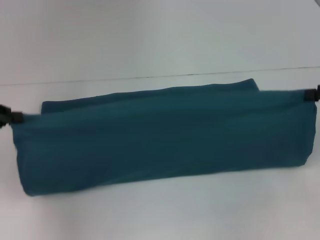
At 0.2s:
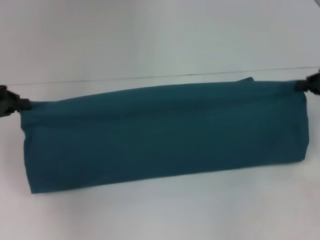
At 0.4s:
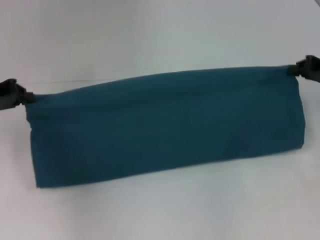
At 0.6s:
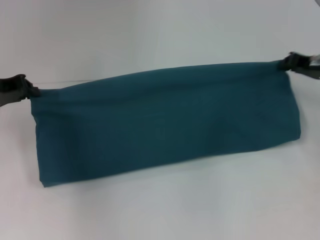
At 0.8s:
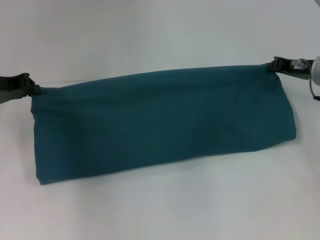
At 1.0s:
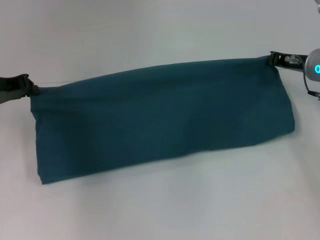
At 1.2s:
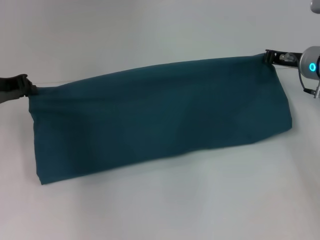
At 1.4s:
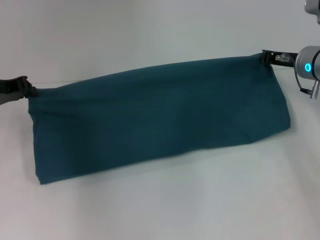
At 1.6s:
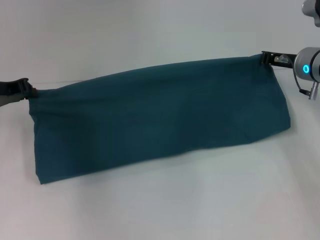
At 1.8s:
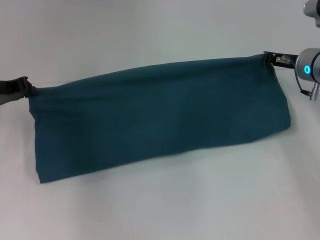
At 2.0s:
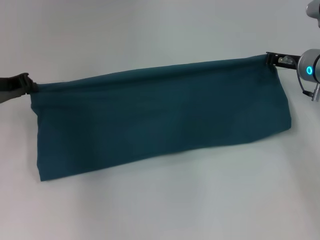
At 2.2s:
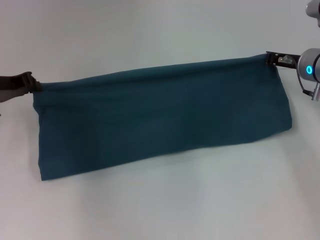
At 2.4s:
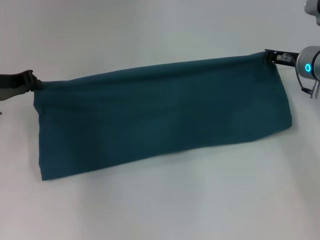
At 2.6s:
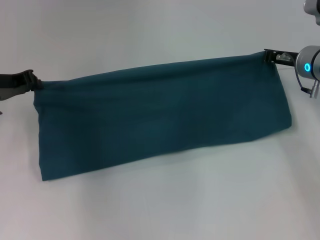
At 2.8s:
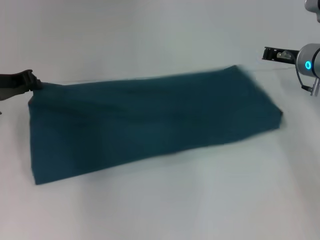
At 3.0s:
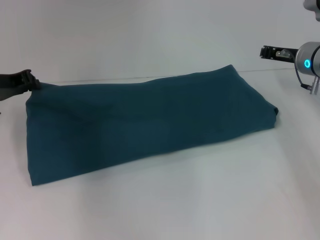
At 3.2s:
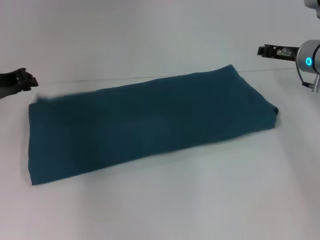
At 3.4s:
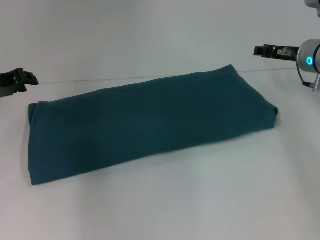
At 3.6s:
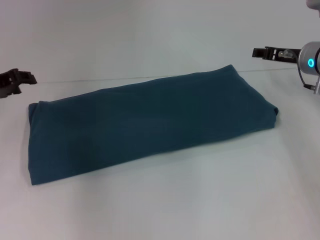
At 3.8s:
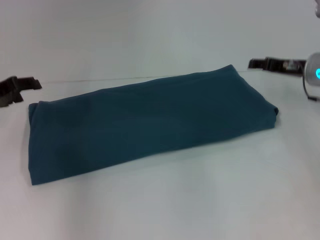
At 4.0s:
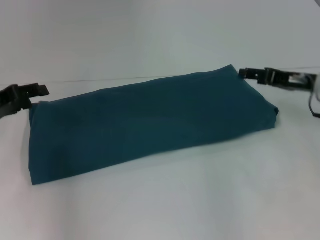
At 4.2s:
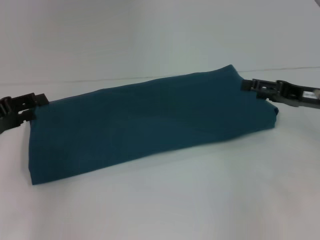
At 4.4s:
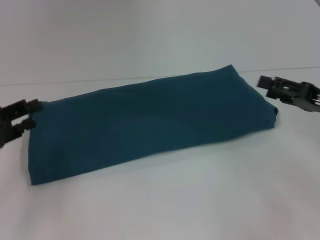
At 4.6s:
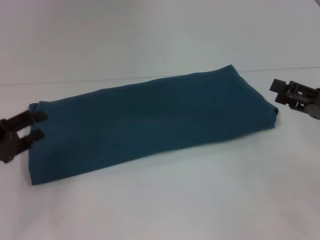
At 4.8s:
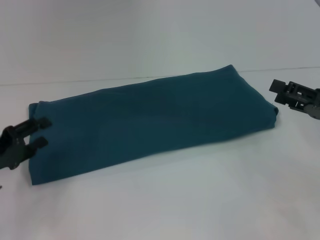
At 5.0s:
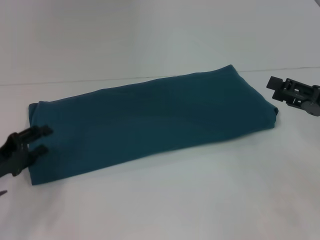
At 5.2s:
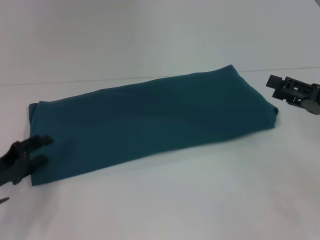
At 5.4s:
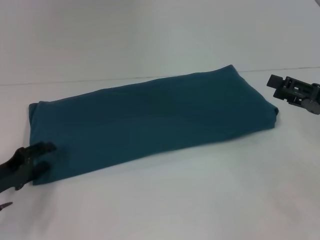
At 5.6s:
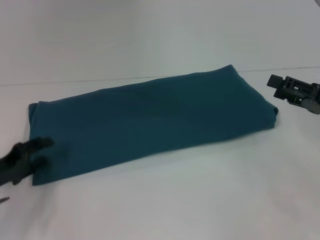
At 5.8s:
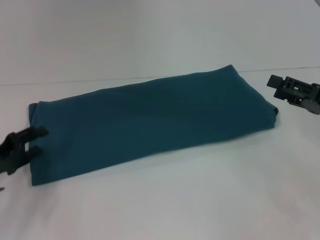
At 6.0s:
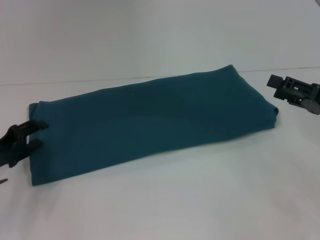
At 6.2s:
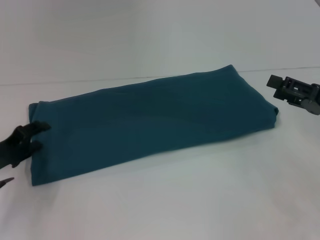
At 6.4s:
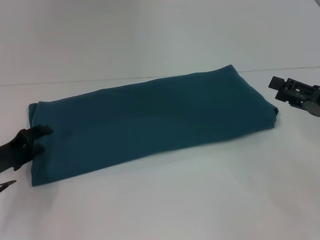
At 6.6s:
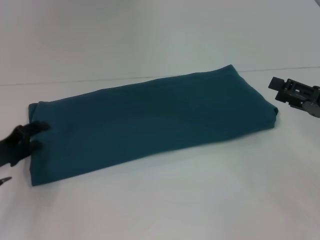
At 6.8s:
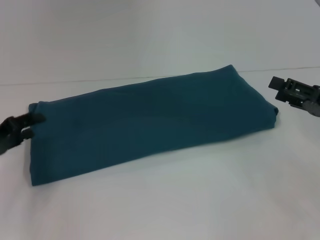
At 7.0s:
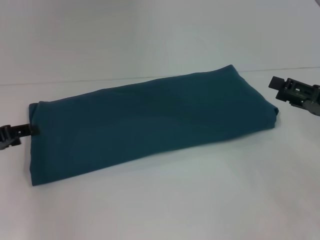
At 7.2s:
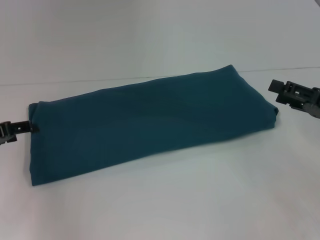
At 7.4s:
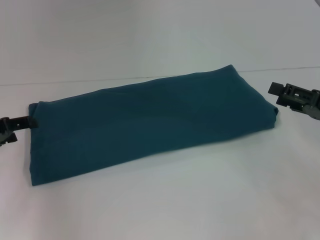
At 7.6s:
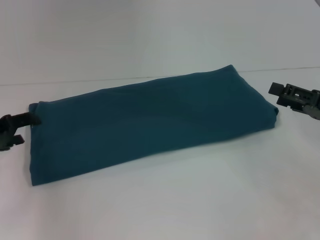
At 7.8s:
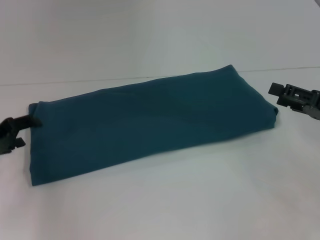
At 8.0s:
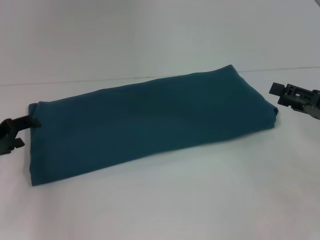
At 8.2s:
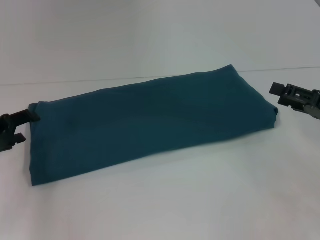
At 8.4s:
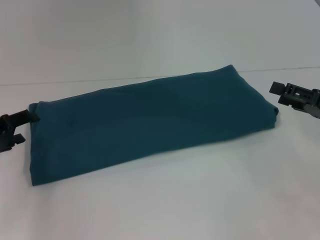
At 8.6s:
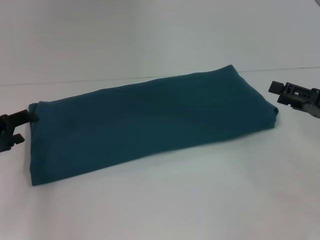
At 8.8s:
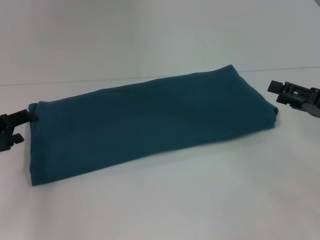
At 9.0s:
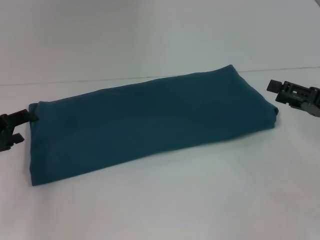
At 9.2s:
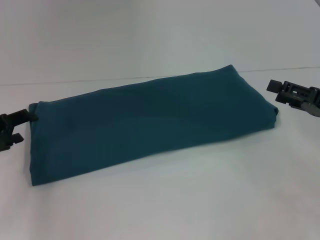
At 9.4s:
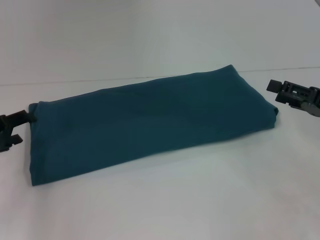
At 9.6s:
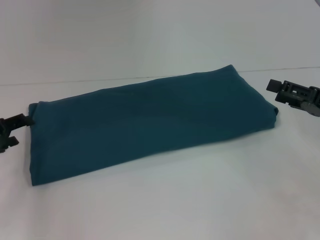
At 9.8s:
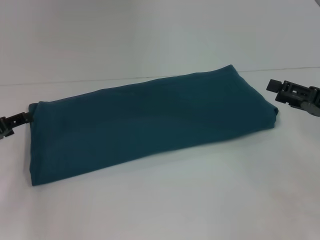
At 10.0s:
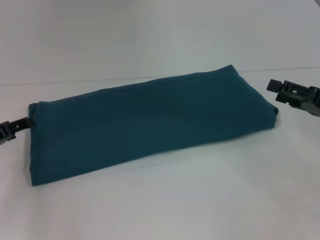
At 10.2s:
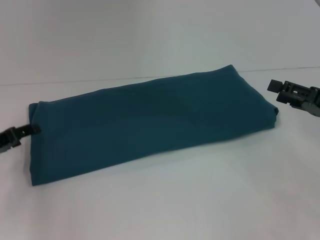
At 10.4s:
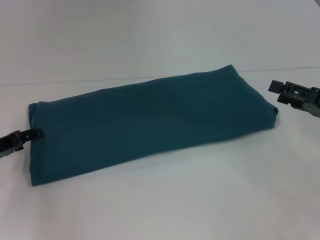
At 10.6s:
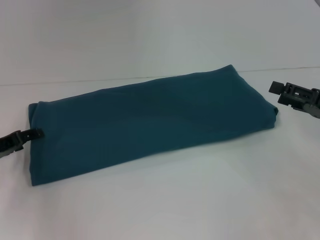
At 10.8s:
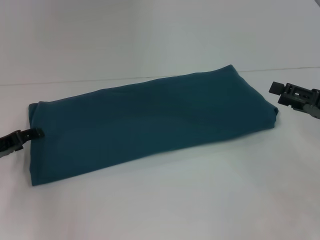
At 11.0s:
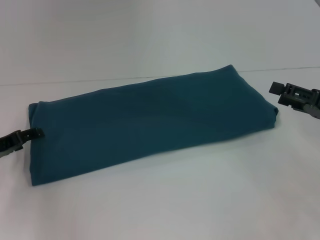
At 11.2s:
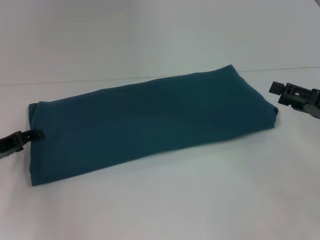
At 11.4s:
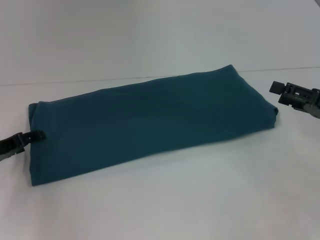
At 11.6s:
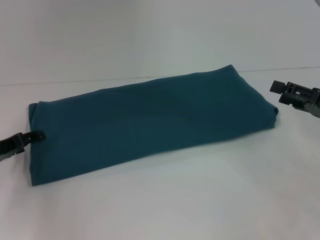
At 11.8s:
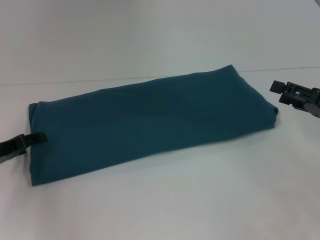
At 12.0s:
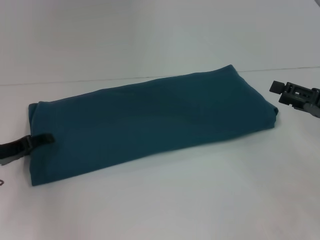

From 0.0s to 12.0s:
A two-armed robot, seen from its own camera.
Step, from 0.0s to 3.6s: Fold the clothes to the right.
From 0.0s to 1.6s: The left gripper is displaced forward and to the right by roughly 10 cm, while the right gripper is displaced to the left and forward by about 15 cm.
From 1.6s to 3.0s: Both grippers stay put.
From 3.0s to 4.4s: The right gripper is displaced backward and to the right by about 15 cm, and opens. Meanwhile the left gripper goes some 10 cm backward, and opens.
From 4.4s to 6.0s: The left gripper travels downward by about 5 cm.
From 6.0s to 7.6s: The left gripper is displaced upward by some 5 cm.
From 7.6s to 12.0s: The grippers stay close to where they were, moving slightly.

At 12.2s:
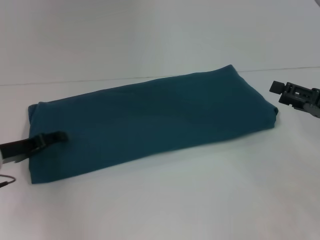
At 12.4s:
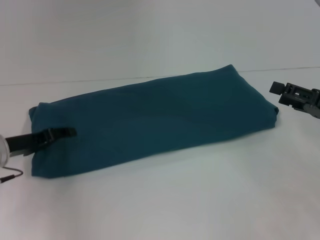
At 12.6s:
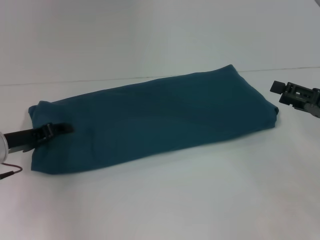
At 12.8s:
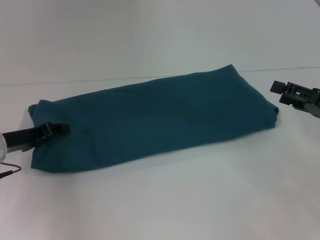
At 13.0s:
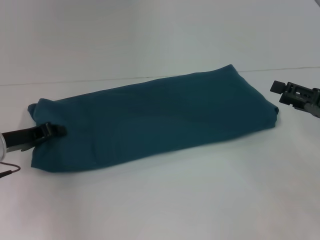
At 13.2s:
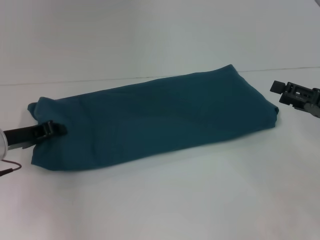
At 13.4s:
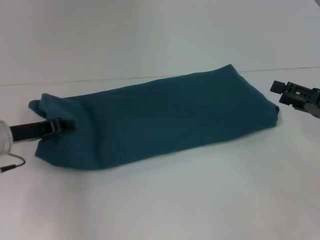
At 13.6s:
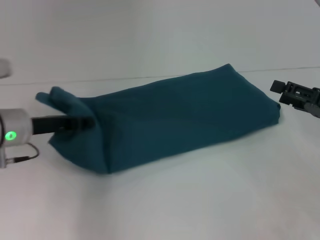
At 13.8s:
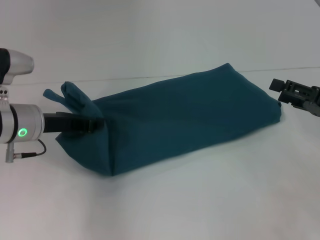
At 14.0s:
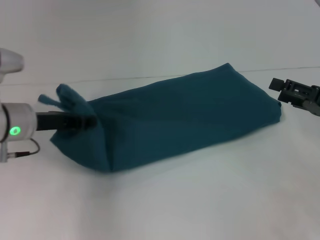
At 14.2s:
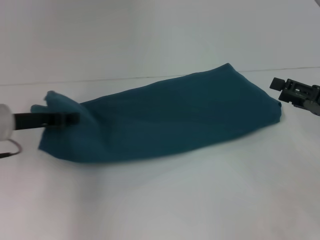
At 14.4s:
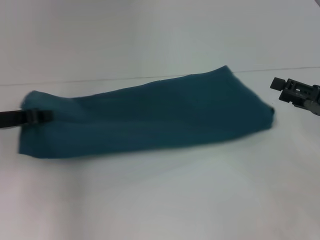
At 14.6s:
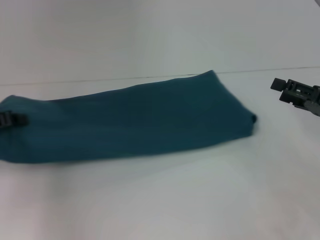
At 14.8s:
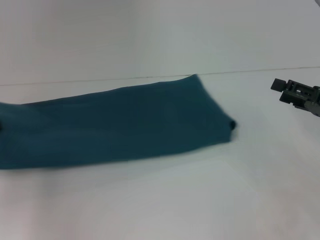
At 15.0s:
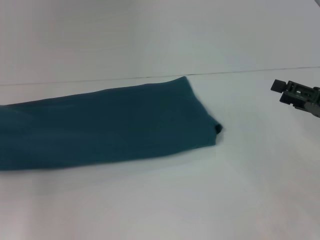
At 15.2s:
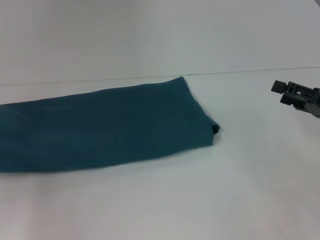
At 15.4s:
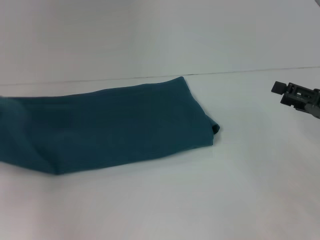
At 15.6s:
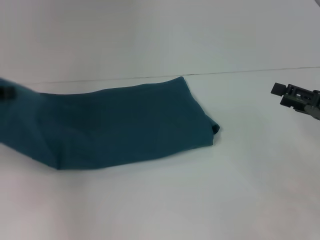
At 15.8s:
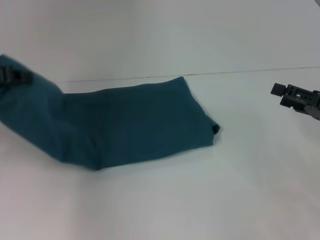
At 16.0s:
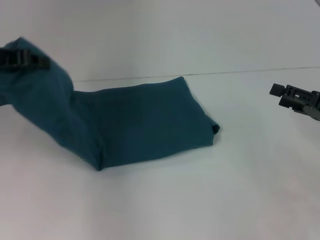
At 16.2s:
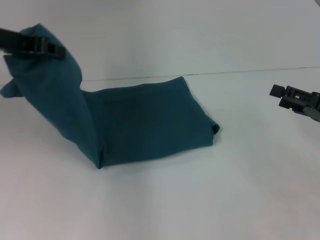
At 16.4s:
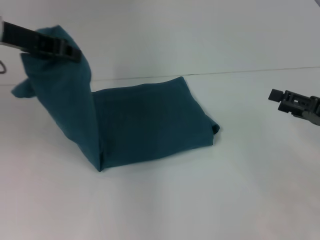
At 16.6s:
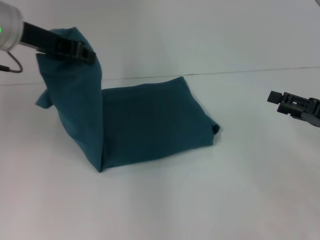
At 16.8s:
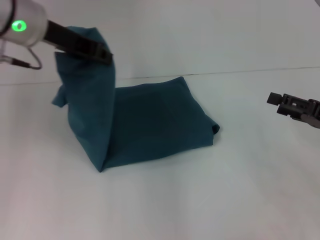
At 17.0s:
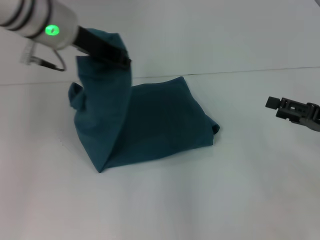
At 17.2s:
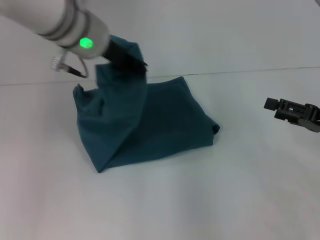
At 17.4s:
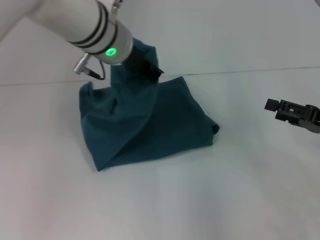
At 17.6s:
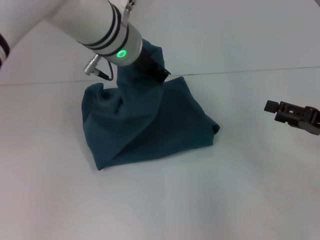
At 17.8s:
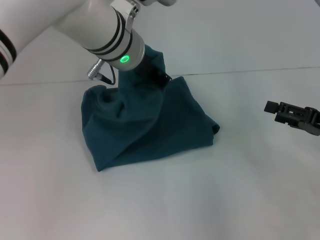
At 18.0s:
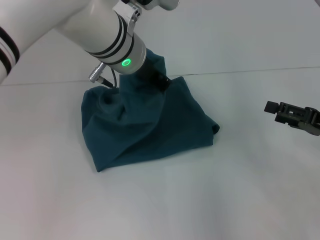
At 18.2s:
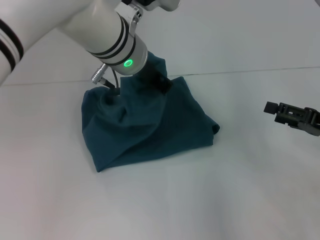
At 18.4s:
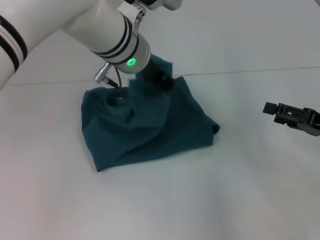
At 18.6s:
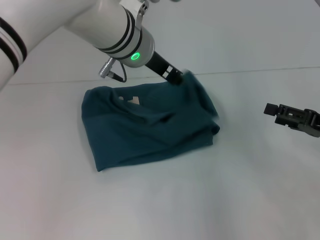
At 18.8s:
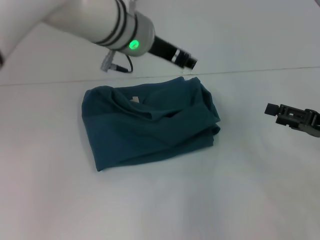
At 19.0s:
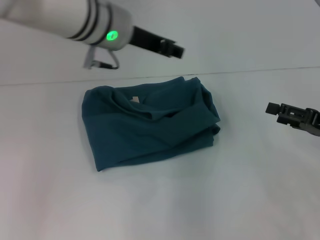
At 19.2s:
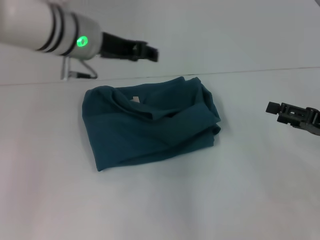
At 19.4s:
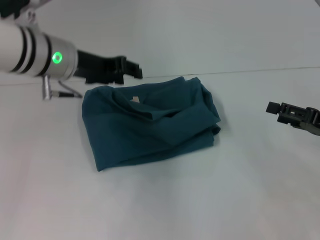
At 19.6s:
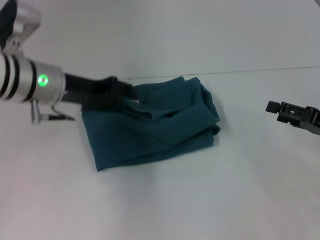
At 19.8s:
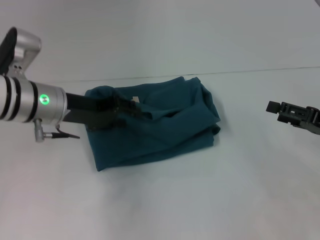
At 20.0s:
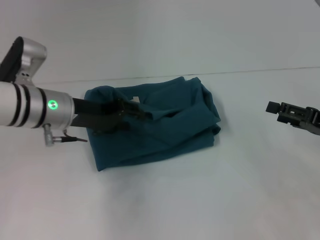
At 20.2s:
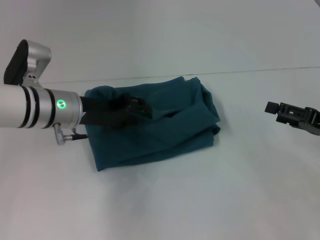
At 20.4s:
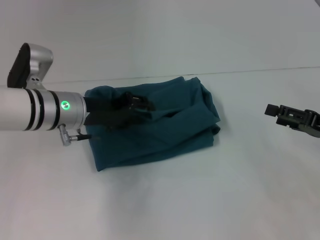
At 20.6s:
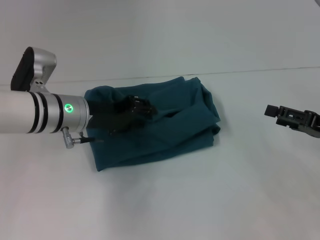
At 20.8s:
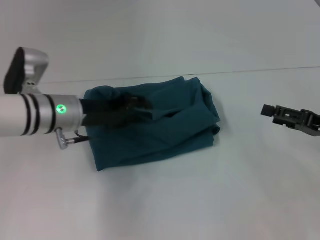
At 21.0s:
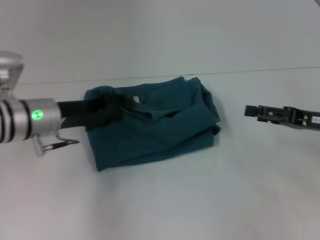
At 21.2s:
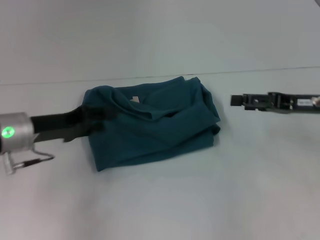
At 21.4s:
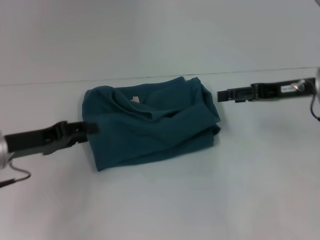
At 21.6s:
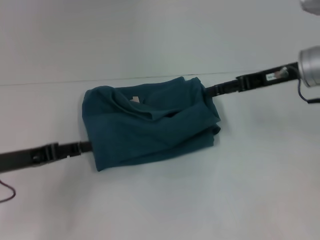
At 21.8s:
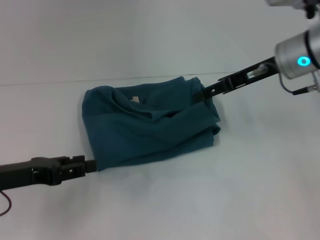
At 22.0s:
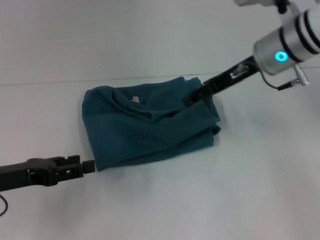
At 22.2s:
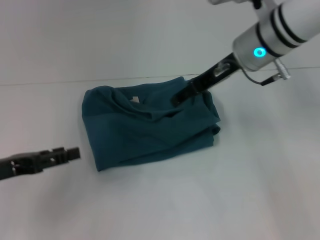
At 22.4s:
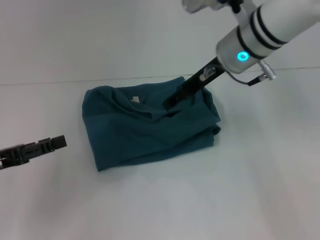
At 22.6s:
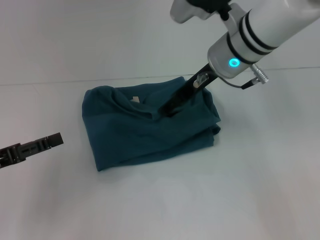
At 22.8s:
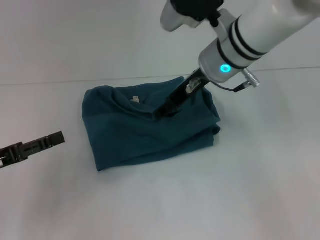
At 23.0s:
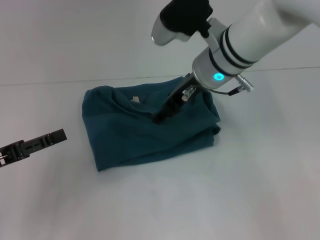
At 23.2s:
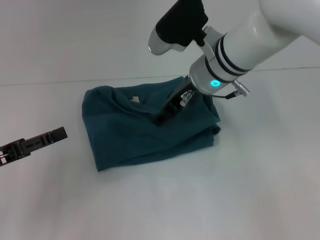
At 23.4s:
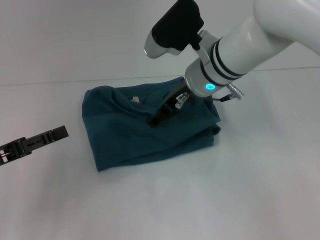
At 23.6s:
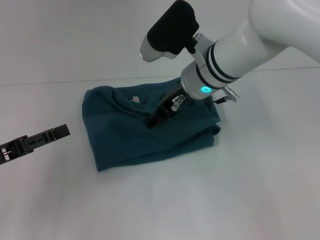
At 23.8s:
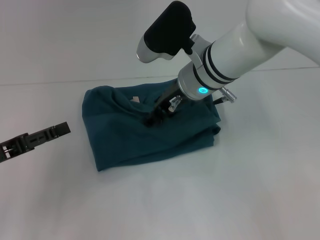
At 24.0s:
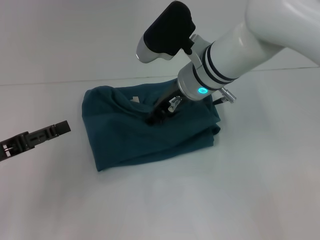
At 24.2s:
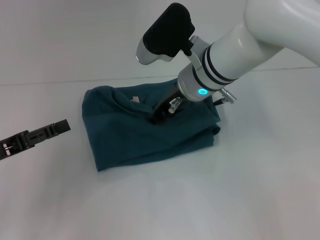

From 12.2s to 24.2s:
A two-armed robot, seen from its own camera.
Step, from 12.2s to 18.8s: Fold the clothes to the left.
From 12.2s to 13.8s: The left gripper goes roughly 10 cm to the right and upward, and closes.
From 13.8s to 15.2s: The left gripper travels to the left by roughly 15 cm.
From 15.2s to 16.6s: The left gripper is displaced to the right and upward by about 25 cm.
From 16.6s to 18.2s: The left gripper travels to the right by approximately 15 cm.
From 18.2s to 19.8s: The left gripper is displaced to the left and downward by roughly 15 cm, and opens its fingers.
From 19.8s to 21.2s: The right gripper is displaced forward by some 5 cm. Meanwhile the left gripper changes place by some 5 cm.
From 21.2s to 22.6s: The right gripper moves to the left and upward, some 20 cm. Meanwhile the left gripper shifts approximately 10 cm to the left and backward.
From 22.6s to 24.2s: The right gripper shifts by about 5 cm.
